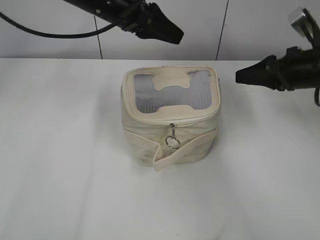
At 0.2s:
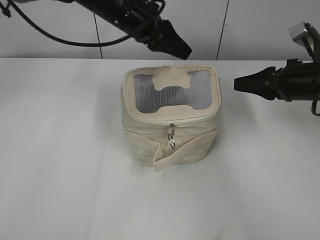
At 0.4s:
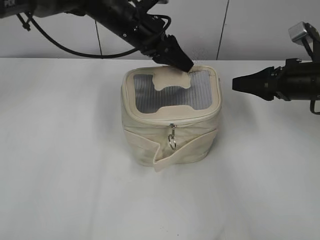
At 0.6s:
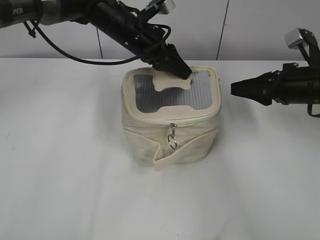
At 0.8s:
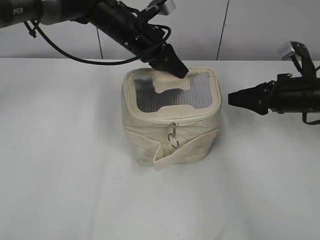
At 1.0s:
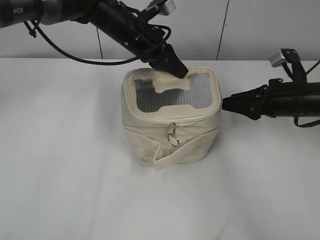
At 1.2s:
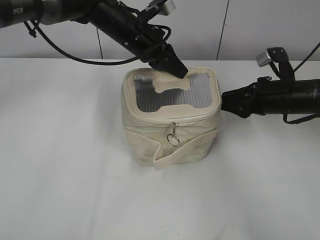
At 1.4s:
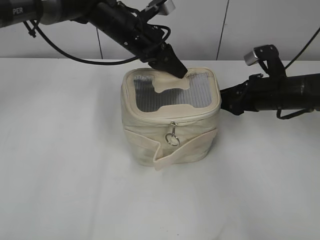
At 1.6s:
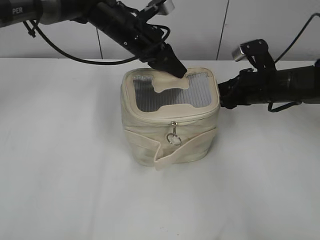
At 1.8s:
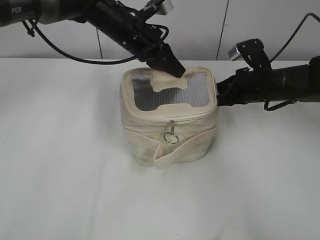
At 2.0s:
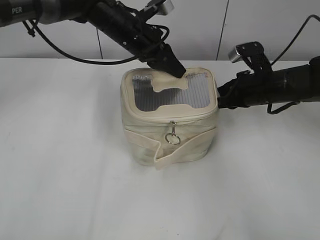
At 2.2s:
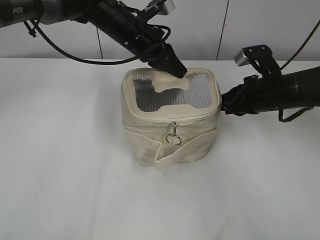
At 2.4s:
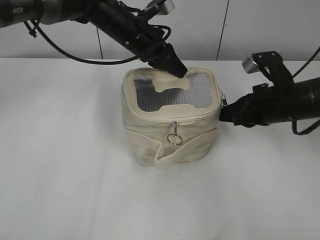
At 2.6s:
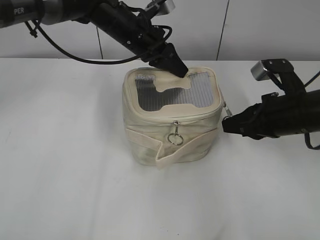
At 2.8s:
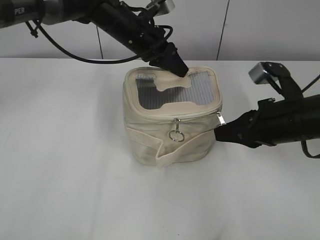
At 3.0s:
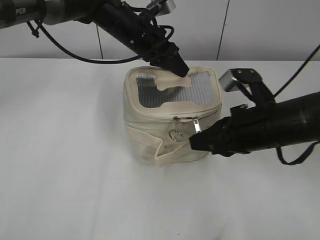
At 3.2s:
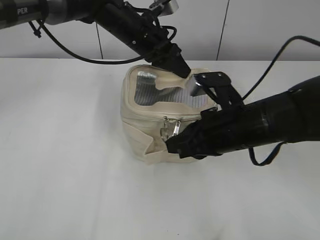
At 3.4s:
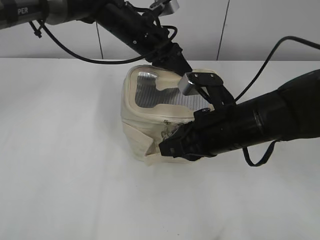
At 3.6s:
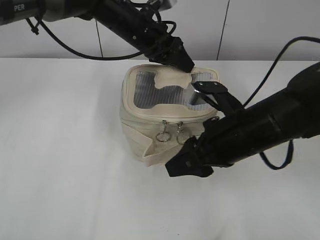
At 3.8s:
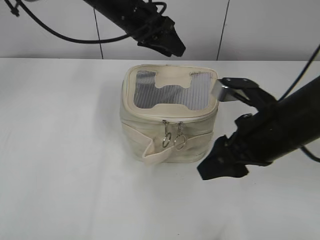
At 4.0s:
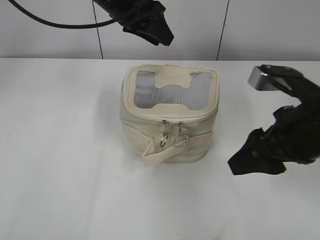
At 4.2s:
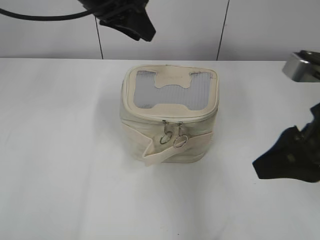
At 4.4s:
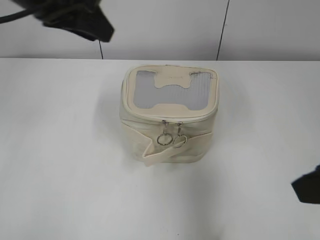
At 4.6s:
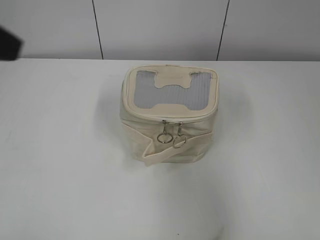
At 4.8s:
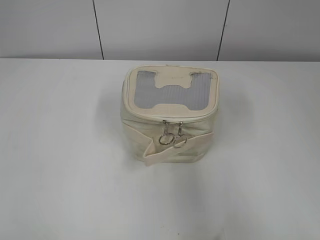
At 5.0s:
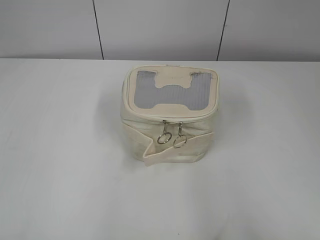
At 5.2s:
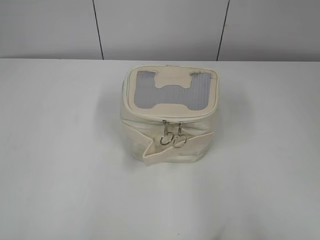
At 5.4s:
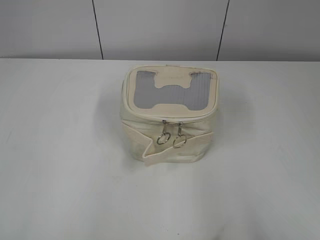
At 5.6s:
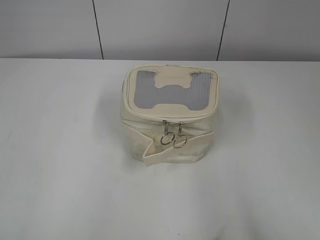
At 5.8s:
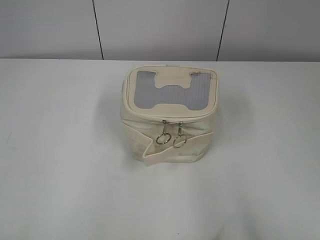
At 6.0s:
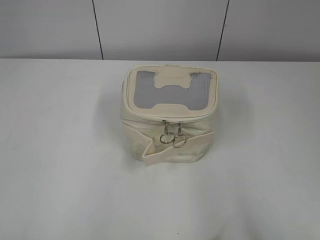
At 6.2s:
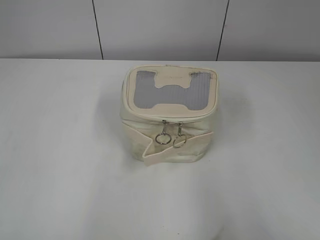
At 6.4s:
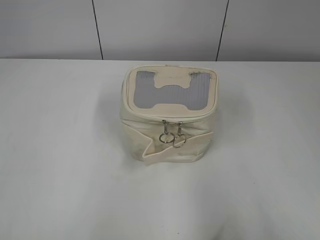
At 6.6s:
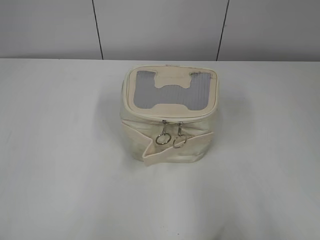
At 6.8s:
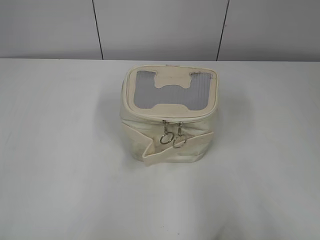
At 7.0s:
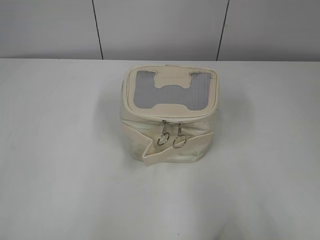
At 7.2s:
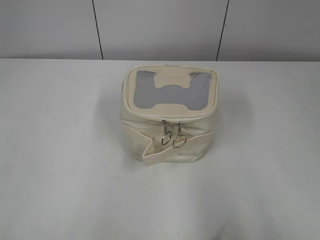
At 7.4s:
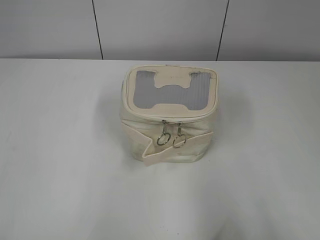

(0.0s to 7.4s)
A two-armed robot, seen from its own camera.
Step, 0.0s - 0.8s: Grasp the bag with left gripper.
Step, 1.0s - 3.6s: Pull the zipper with right gripper.
0.0s - 1.4s: The grippers both shift downward by about 5 cm. The left gripper closes up.
1.4s - 3.0s: The right gripper heads backward and to the left, covering roughly 10 cm, and closes its fingers.
3.0s - 4.4s: The right gripper shifts some 15 cm upward, backward and to the right, and opens up; the left gripper travels backward, upward and to the left by approximately 20 cm, and opens up.
4.4s - 6.0s: The left gripper moves backward and to the left, approximately 35 cm, while the right gripper is displaced backward and to the right by roughly 15 cm.

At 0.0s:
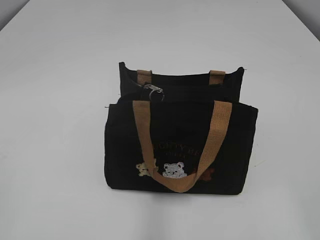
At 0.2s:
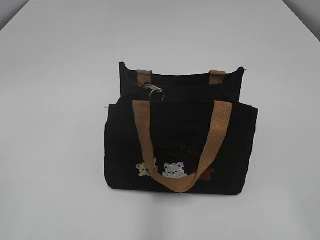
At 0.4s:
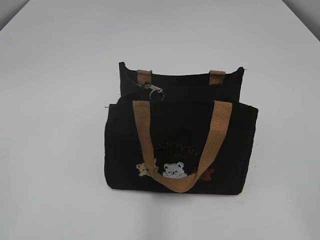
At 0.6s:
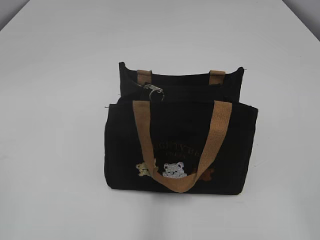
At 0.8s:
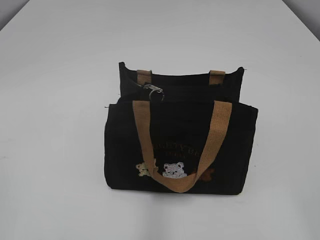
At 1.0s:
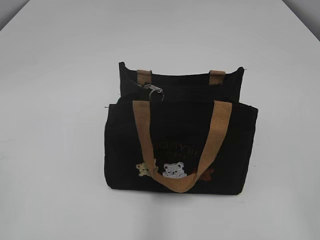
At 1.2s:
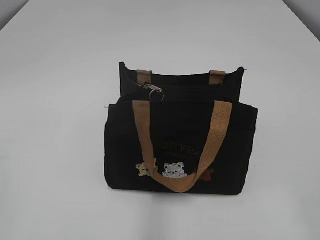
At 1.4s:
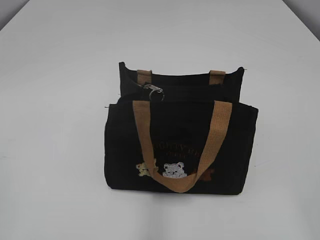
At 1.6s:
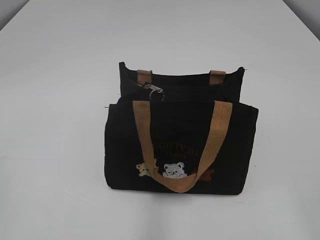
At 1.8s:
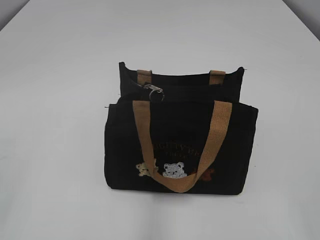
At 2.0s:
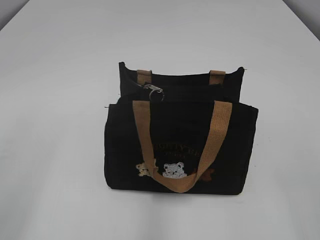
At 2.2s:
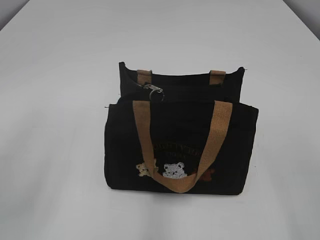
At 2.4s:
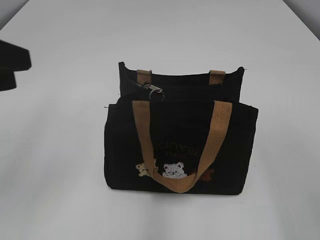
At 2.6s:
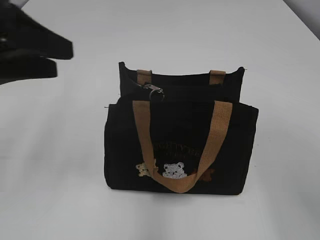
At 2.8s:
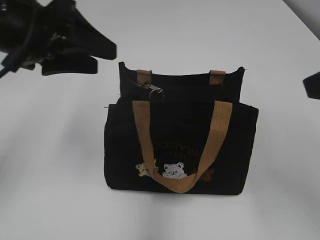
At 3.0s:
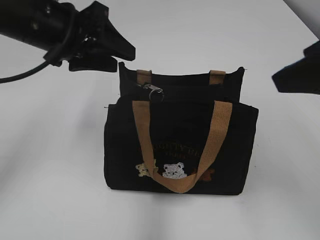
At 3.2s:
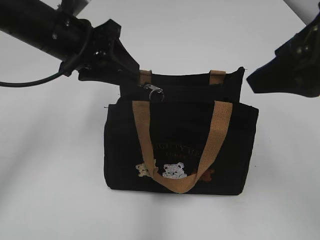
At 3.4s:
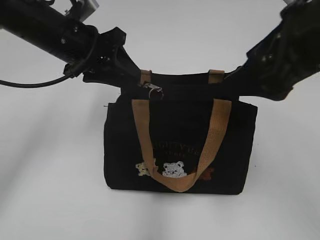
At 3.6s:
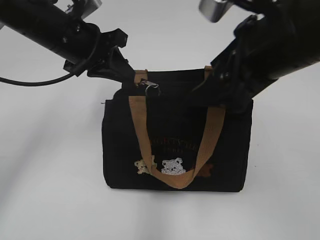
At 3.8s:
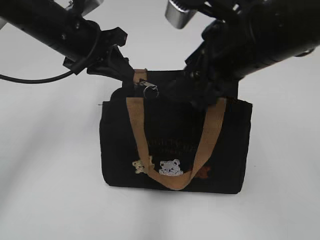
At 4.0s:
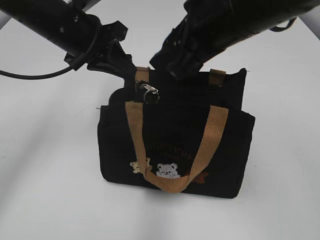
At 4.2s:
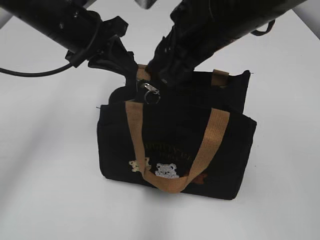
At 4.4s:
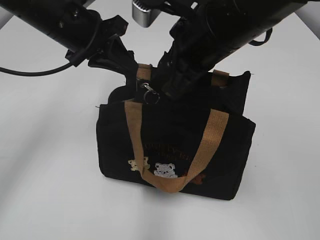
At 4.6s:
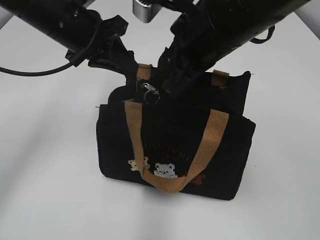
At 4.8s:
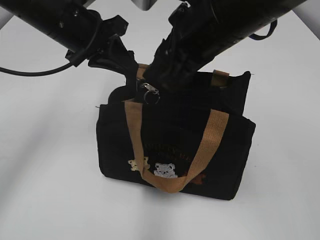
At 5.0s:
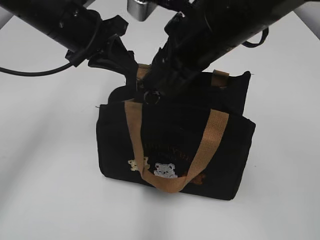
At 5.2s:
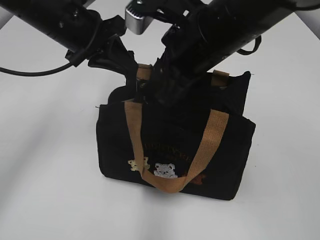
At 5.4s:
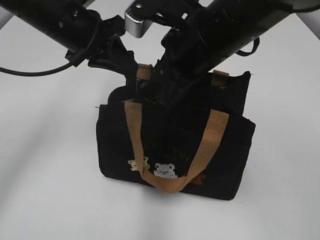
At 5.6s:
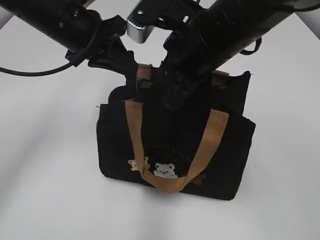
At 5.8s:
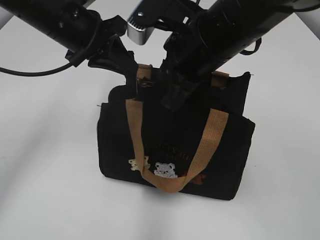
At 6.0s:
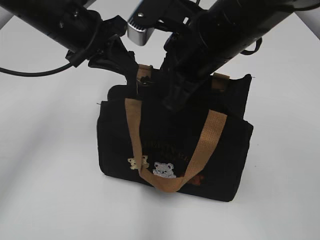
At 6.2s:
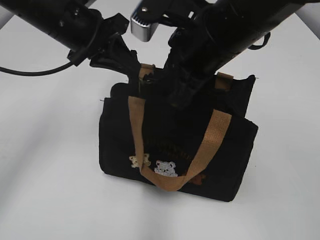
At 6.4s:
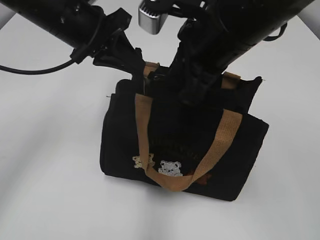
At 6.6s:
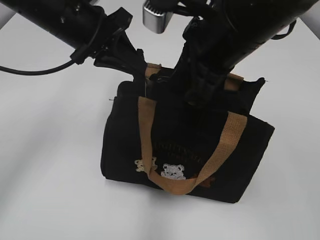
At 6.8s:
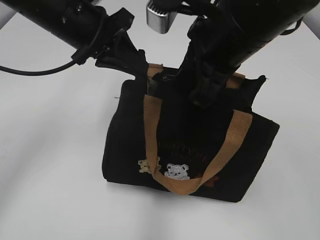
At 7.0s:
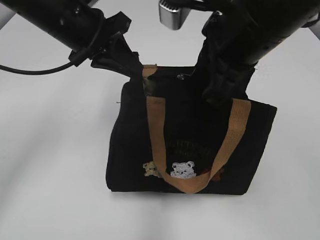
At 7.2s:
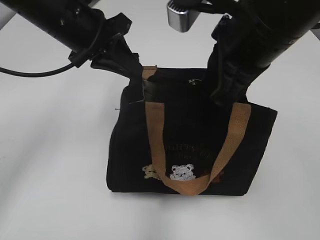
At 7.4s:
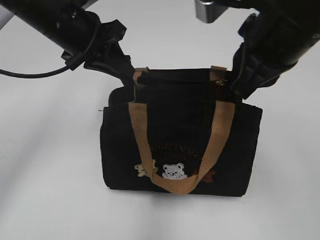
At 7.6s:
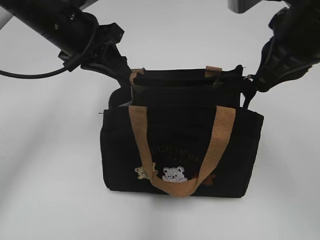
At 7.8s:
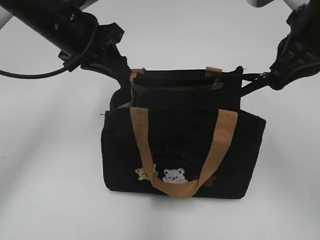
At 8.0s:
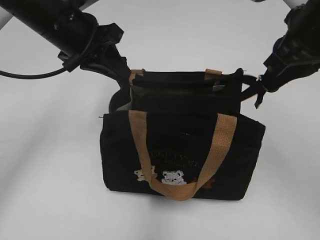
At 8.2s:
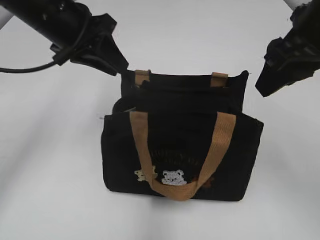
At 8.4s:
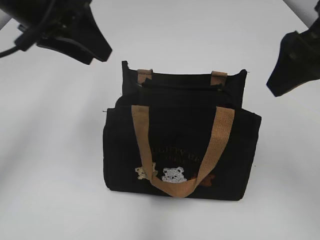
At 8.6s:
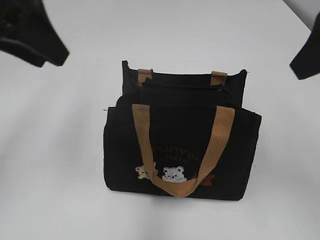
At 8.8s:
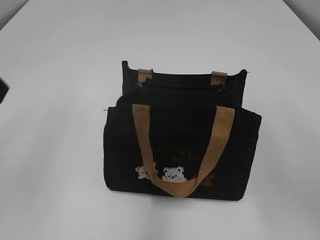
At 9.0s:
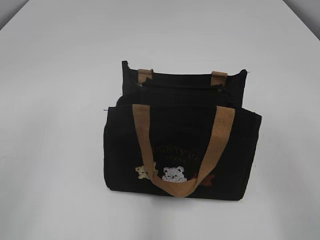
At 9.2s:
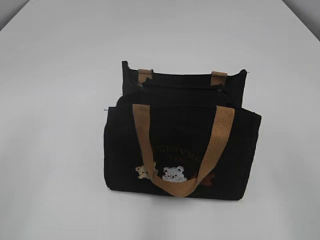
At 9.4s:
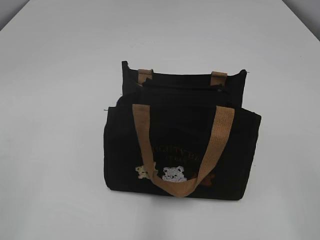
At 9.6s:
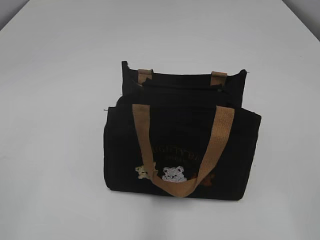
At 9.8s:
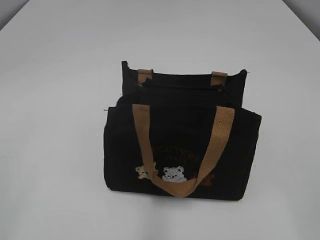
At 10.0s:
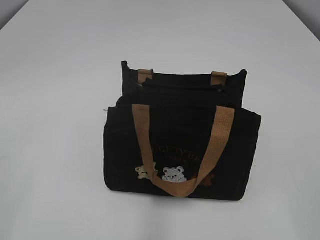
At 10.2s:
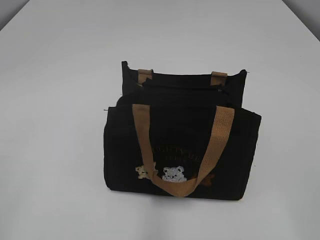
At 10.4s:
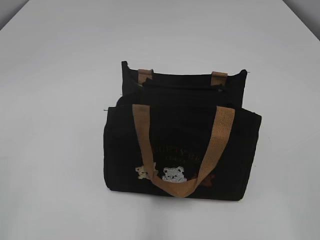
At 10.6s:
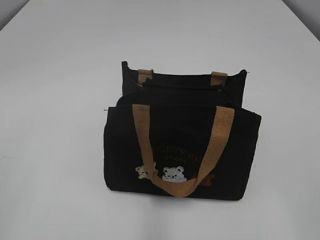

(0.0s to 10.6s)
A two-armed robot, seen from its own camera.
Step, 0.0s - 8.0s: Pull open the zipper with your right hand.
1.6s - 3.0s: The left gripper is displaced forward and to the right by about 35 cm, and opens up; the right gripper goes approximately 20 cm forward.
3.0s - 4.6s: The left gripper is displaced forward by about 5 cm, and closes. Meanwhile the right gripper travels to the left, forward and downward by roughly 20 cm, and closes.
4.6s - 6.0s: The right gripper closes its fingers.
6.0s - 7.6s: The right gripper shifts approximately 10 cm to the right.
7.6s - 9.0s: The left gripper goes some 25 cm backward and to the left, and opens up; the right gripper moves backward and to the right, about 15 cm, and opens its fingers.

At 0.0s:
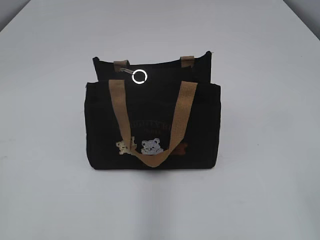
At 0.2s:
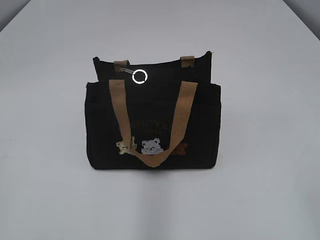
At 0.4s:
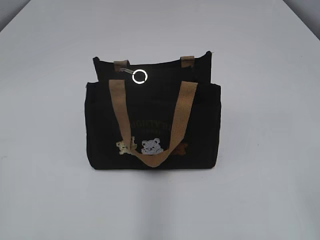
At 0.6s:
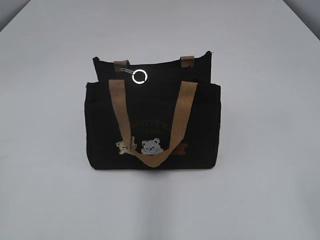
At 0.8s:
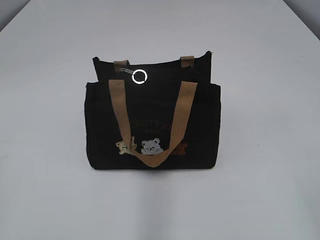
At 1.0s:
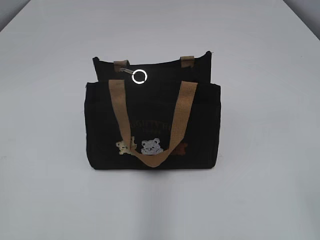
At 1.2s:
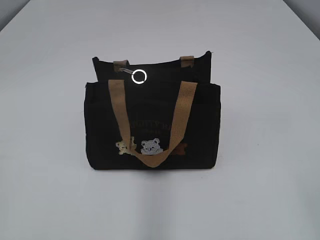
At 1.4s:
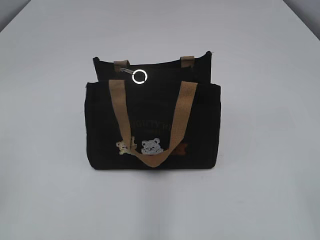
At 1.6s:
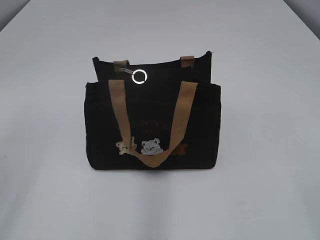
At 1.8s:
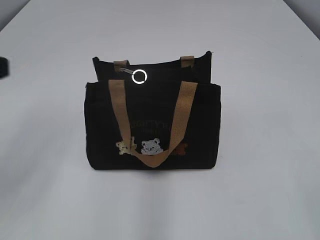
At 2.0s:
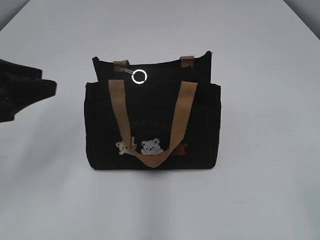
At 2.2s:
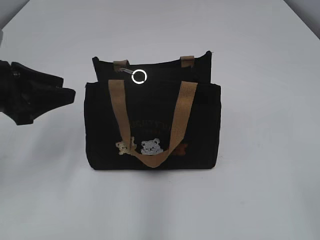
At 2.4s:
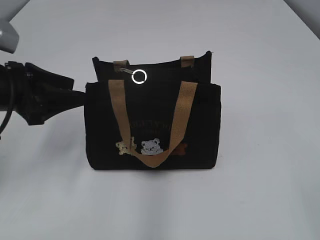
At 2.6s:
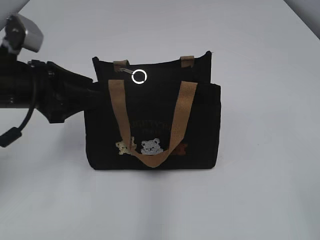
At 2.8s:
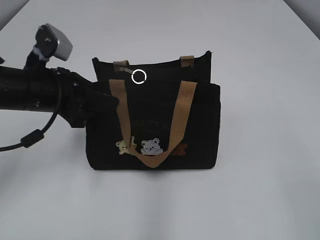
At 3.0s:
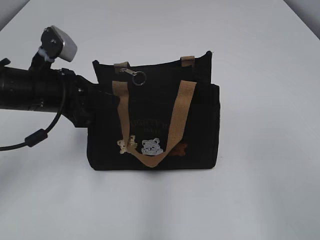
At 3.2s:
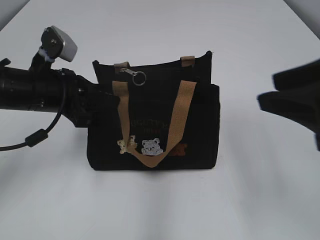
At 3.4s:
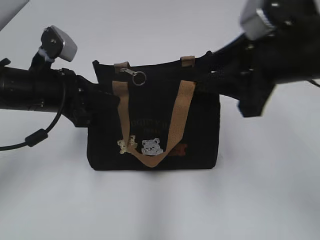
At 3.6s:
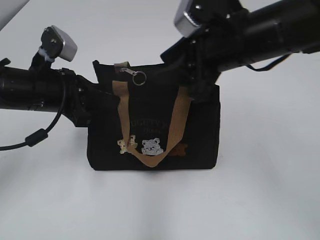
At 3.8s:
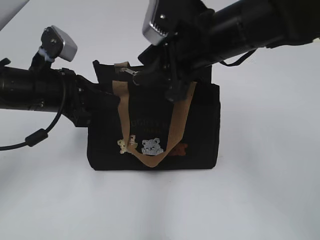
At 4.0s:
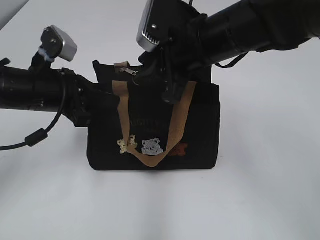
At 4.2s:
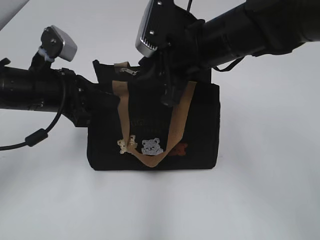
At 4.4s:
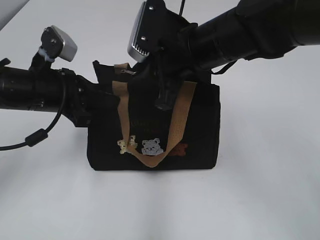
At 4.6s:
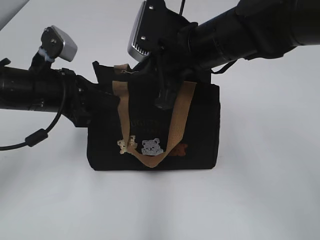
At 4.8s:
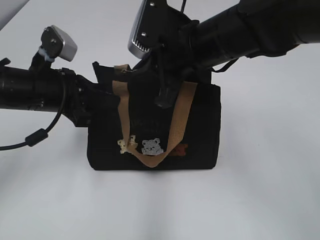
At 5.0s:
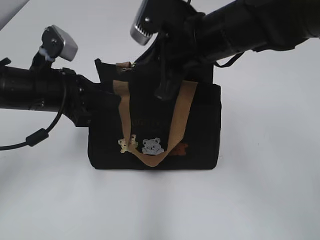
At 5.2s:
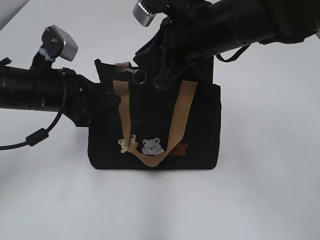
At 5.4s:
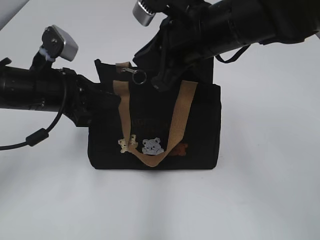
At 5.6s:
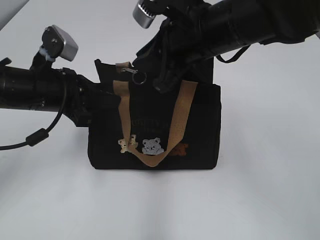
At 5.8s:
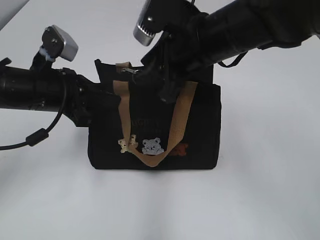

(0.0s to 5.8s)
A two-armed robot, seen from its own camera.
1.4s - 2.8s: The left gripper shifts roughly 30 cm forward and to the right, and opens and closes again.
2.8s - 4.4s: The right gripper moves forward and to the left, about 35 cm; the left gripper closes its fingers.
4.4s - 5.8s: The right gripper closes, then reopens.
